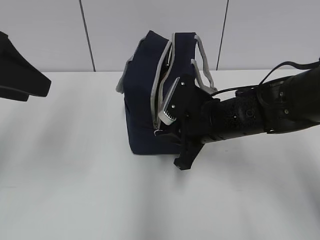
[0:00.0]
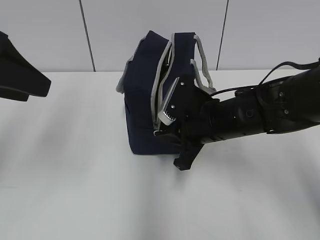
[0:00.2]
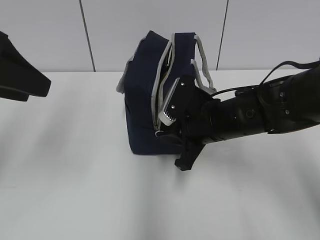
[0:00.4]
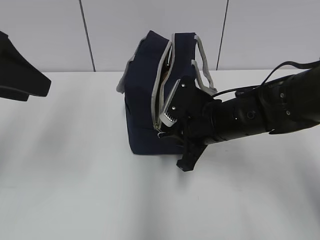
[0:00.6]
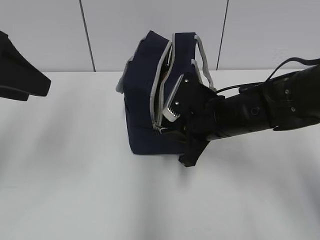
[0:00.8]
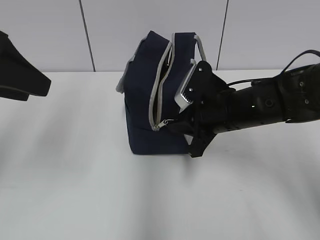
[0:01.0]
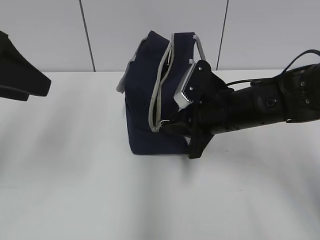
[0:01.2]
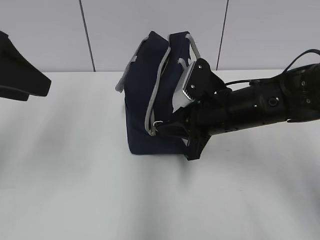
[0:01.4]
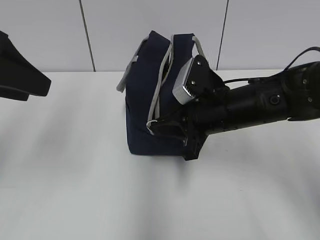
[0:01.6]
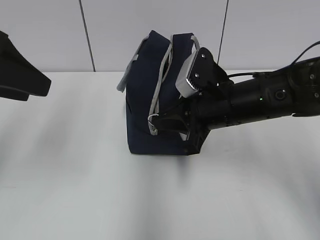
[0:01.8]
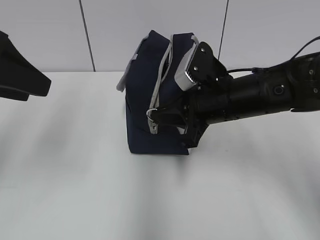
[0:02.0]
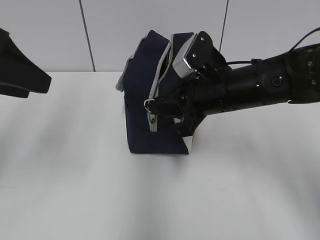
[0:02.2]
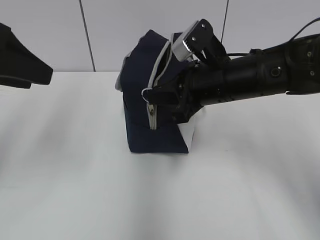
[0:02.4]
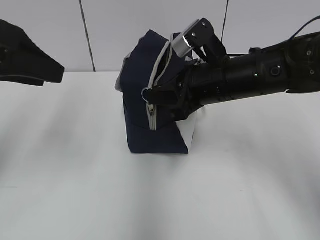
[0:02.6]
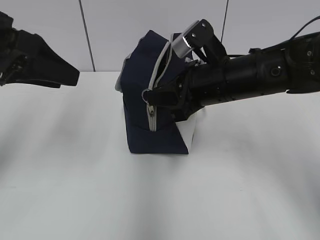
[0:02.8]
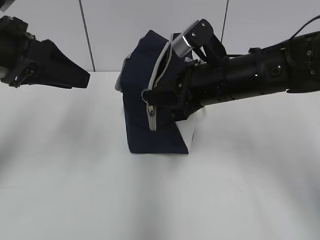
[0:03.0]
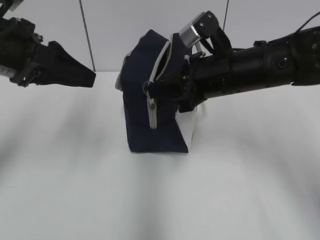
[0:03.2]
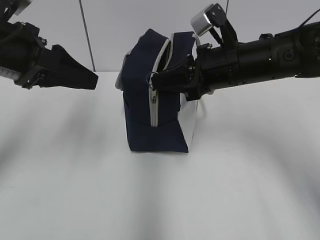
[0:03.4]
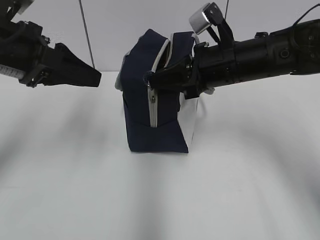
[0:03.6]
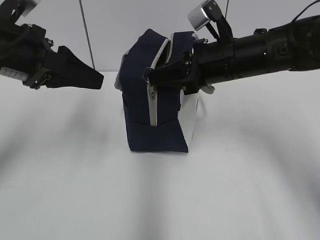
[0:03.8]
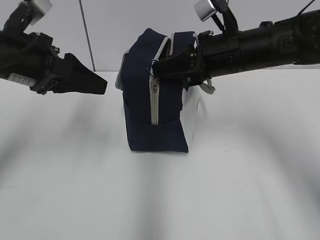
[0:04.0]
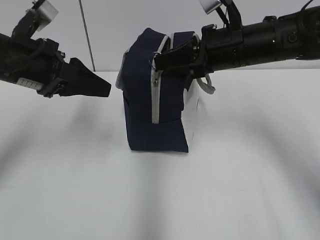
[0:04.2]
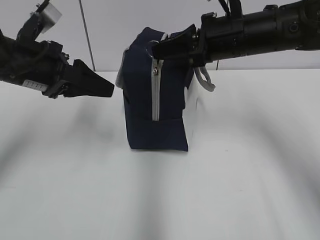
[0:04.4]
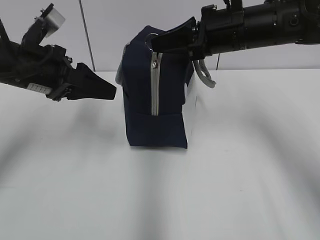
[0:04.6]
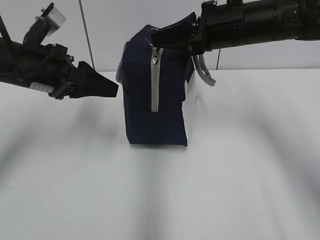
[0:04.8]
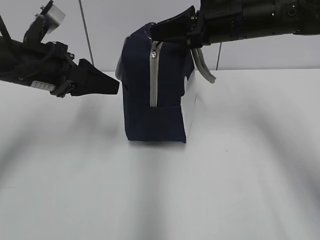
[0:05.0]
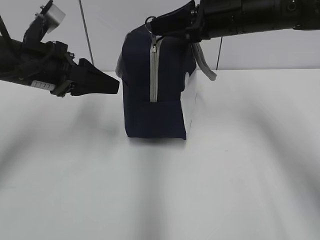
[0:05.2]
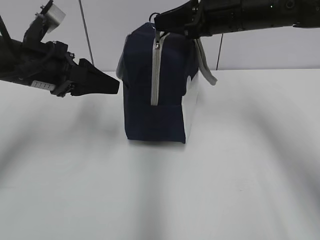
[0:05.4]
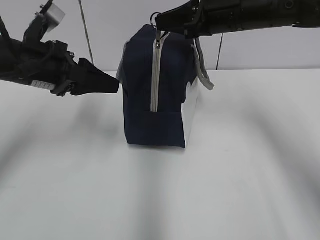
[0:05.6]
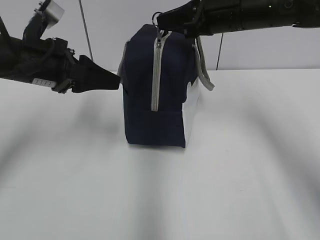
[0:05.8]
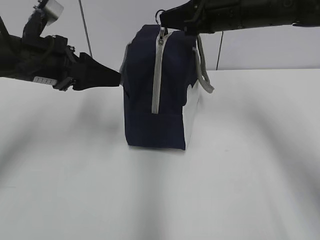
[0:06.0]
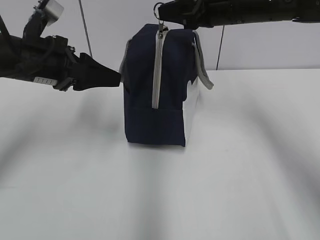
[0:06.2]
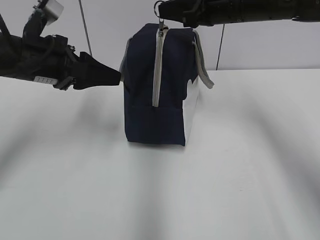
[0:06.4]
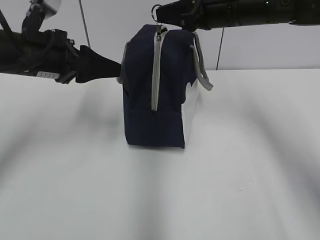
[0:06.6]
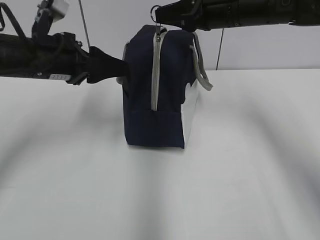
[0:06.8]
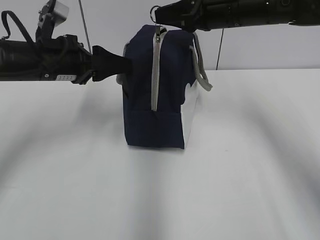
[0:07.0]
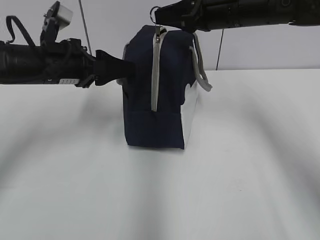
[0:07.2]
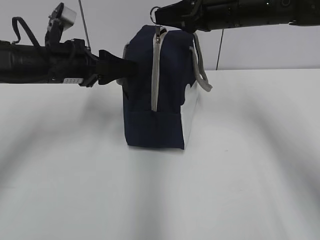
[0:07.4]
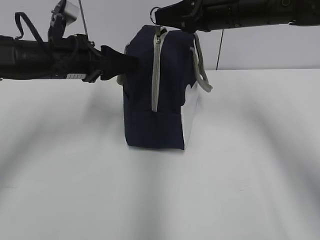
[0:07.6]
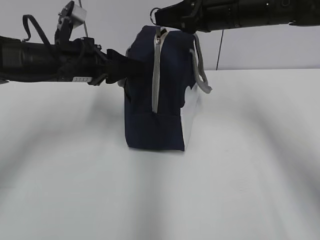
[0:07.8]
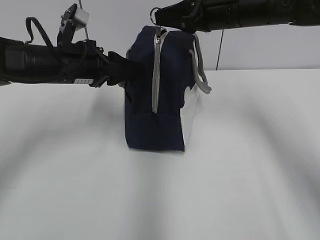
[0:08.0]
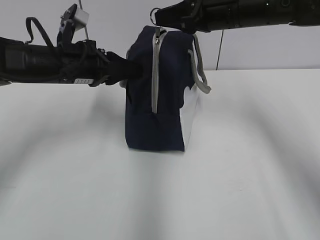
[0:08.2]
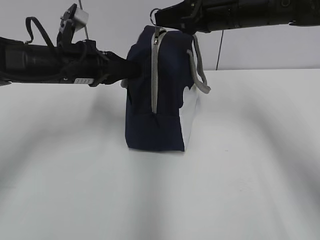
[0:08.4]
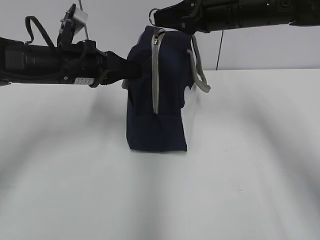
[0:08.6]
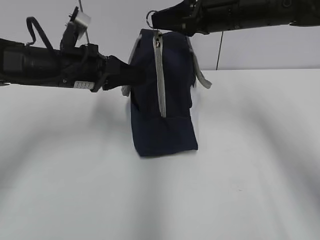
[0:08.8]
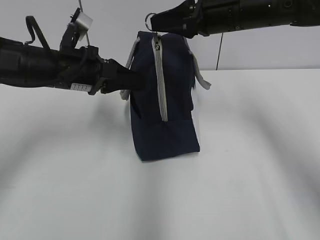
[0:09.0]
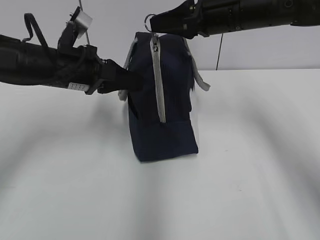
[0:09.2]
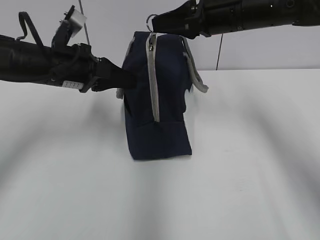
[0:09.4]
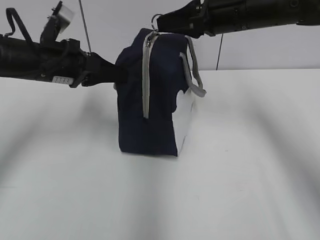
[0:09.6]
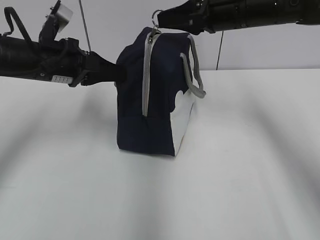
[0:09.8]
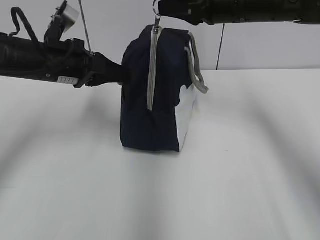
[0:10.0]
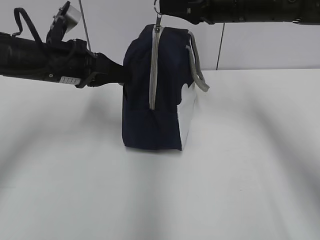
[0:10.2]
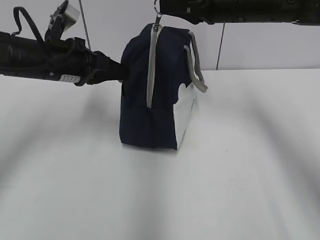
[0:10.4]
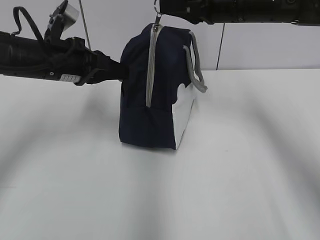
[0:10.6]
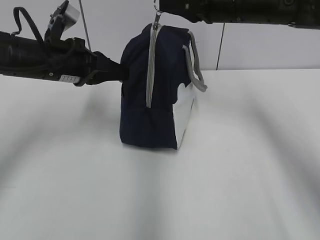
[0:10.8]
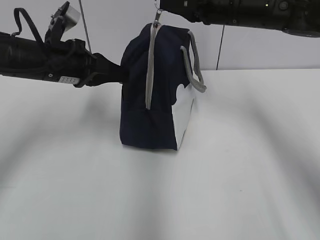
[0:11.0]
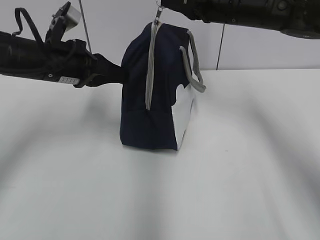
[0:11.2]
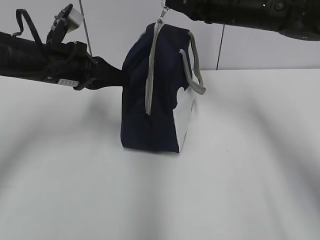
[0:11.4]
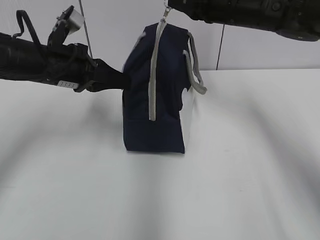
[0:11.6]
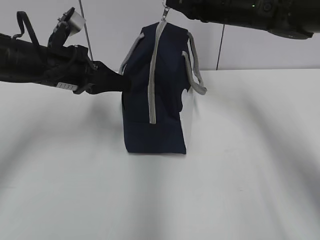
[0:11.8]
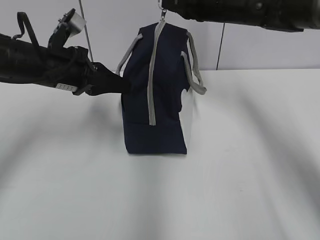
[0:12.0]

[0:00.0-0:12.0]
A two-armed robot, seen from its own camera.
0:00.0 to 0:01.6: The grippers stay close to where they were, moving slightly.
0:01.6 to 0:03.0: The left gripper ends up some 5 cm from where it was.
0:03.0 to 0:04.4: The left gripper moves some 5 cm; the right gripper shifts by approximately 5 cm.
0:04.4 to 0:06.0: The grippers move only a little.
0:06.0 to 0:07.6: The left gripper changes place by approximately 5 cm.
0:07.6 to 0:09.0: The left gripper closes up.
0:09.0 to 0:10.4: The grippers make only small movements.
0:10.4 to 0:12.0: The right gripper travels forward by some 5 cm.

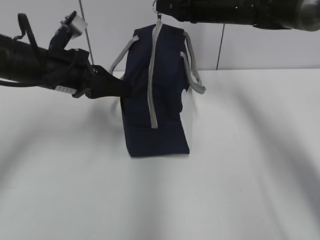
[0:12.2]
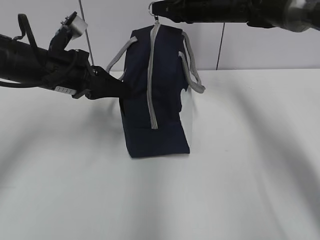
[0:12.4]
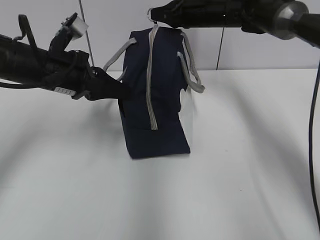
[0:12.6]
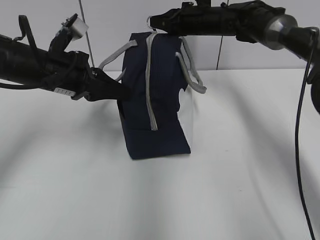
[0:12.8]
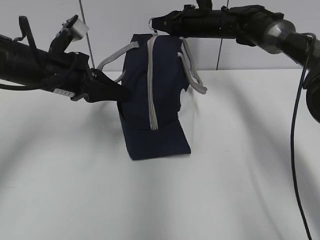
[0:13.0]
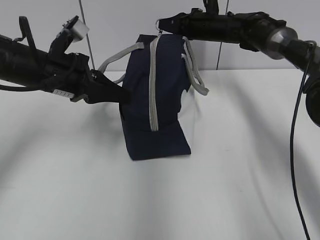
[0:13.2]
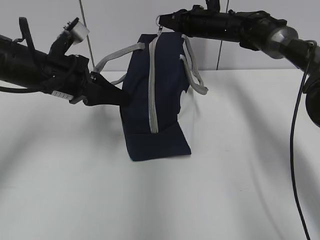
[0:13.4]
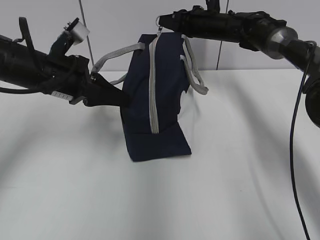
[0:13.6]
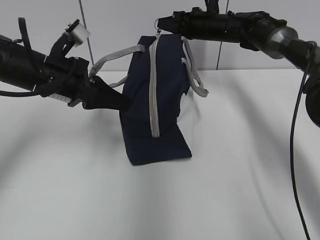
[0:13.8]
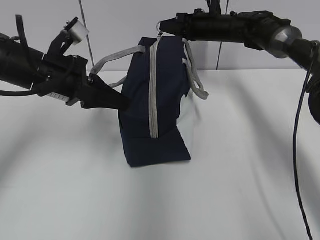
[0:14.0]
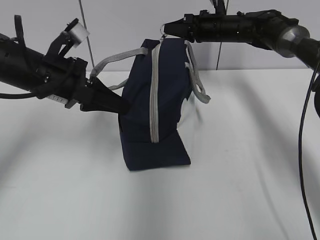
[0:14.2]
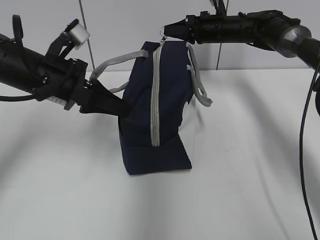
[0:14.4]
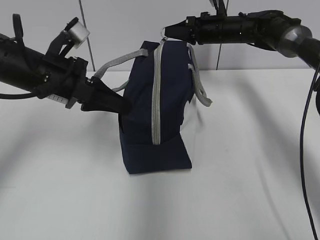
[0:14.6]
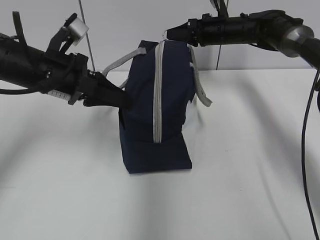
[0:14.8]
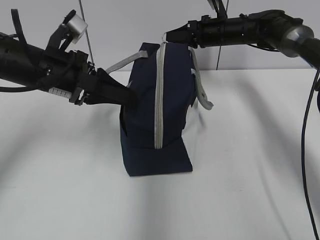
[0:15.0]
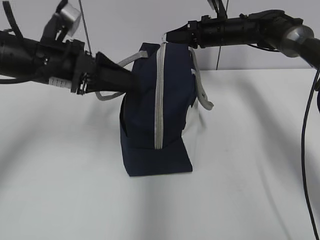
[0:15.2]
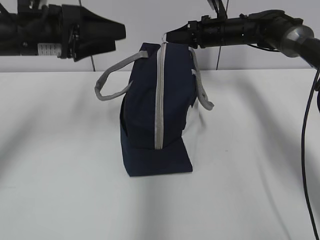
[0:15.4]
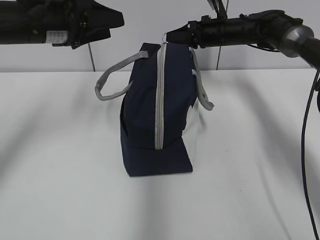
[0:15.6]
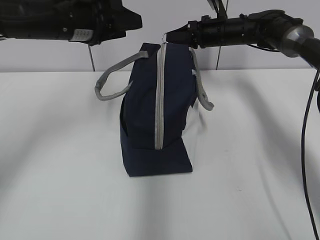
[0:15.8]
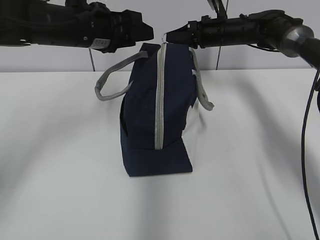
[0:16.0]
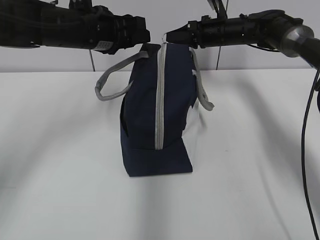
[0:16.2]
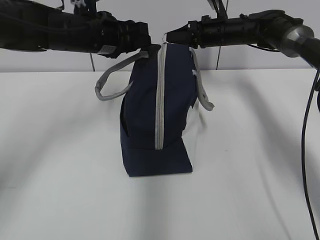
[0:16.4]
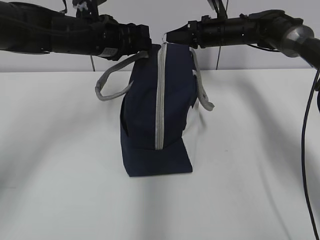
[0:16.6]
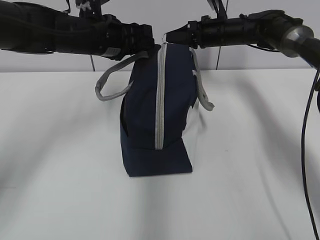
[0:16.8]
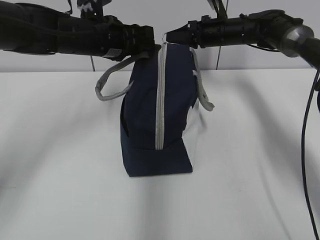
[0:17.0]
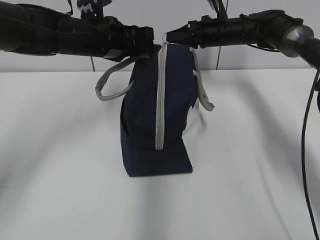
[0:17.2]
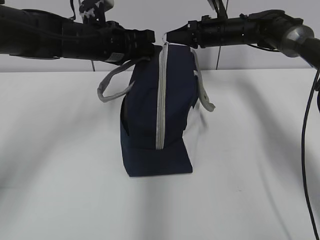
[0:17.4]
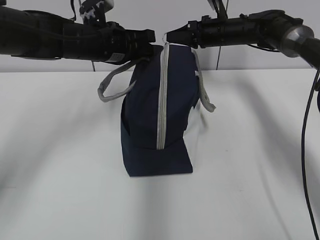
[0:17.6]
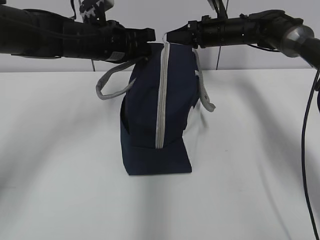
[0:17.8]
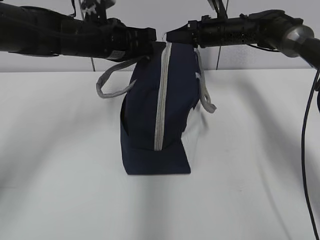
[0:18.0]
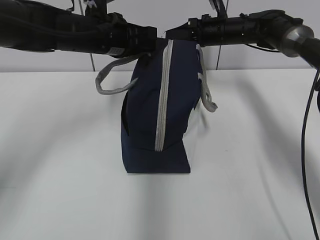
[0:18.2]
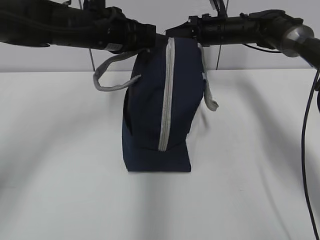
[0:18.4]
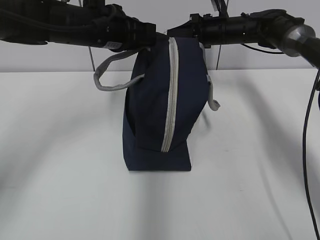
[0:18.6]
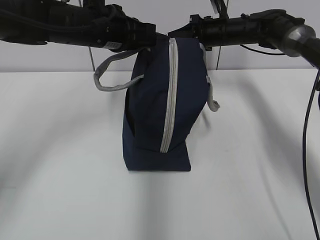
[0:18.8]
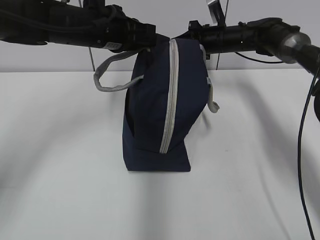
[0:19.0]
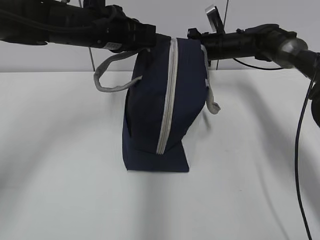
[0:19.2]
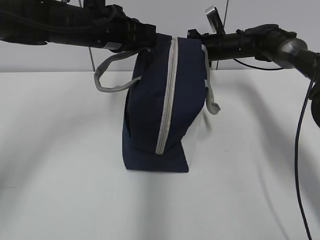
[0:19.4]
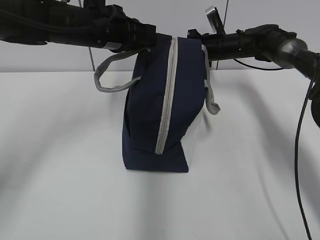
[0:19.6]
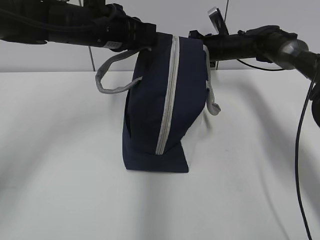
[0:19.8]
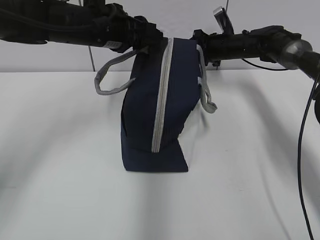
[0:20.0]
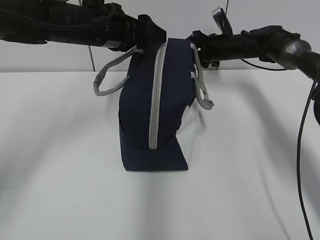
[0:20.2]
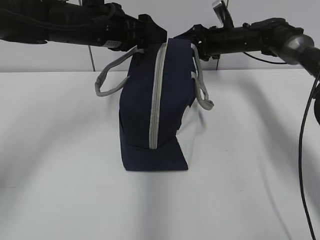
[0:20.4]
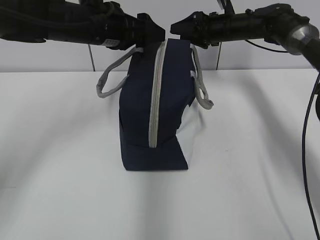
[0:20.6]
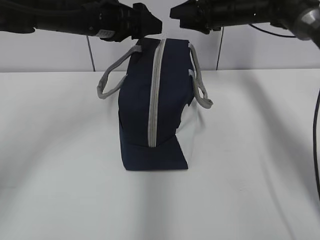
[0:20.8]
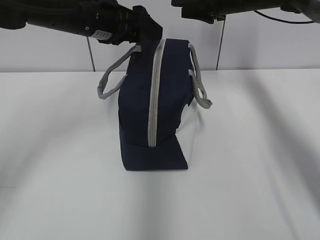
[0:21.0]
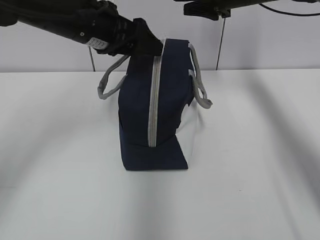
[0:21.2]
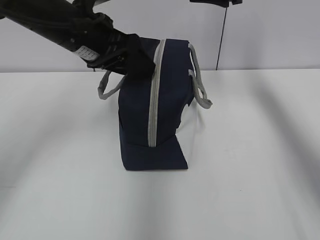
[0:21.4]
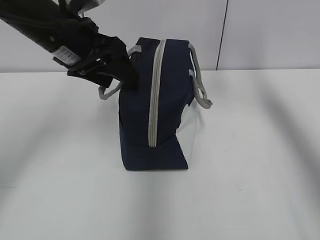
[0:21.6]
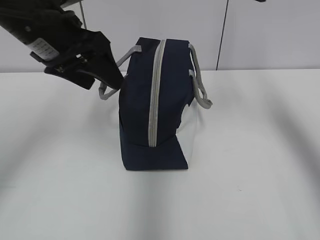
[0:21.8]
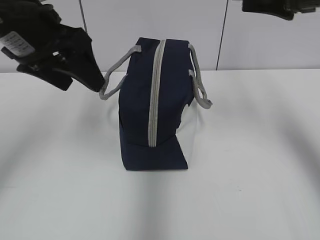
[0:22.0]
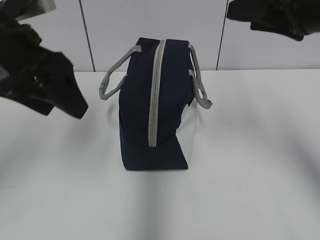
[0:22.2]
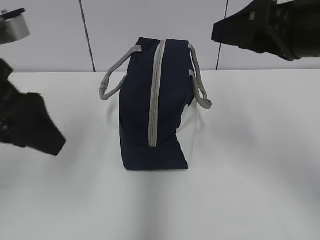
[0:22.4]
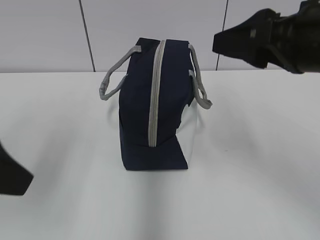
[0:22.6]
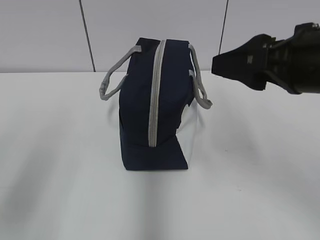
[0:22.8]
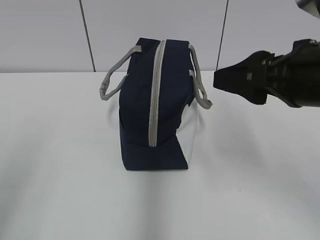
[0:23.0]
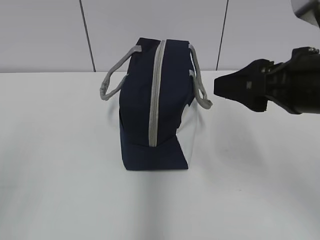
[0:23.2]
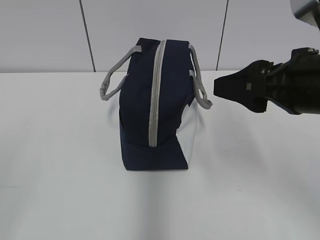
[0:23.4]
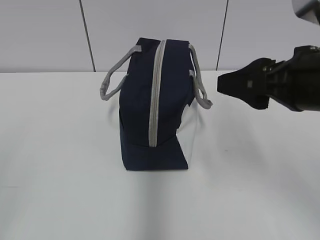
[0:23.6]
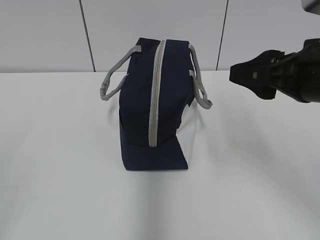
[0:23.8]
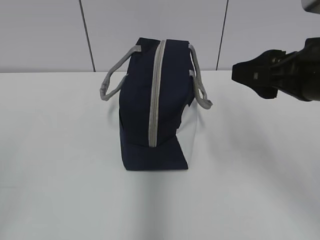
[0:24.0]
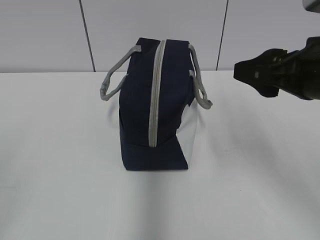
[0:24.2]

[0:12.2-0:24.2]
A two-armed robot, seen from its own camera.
0:12.2 to 0:13.8: The right gripper travels forward and downward by about 10 cm.
0:13.8 to 0:15.2: The left gripper opens.
0:15.2 to 0:16.6: The left gripper is displaced forward by roughly 10 cm.
0:16.6 to 0:18.2: The left gripper closes up.
0:18.2 to 0:19.8: There are only small adjustments of the grippers.
0:19.8 to 0:21.2: The right gripper shifts roughly 15 cm upward and backward, and opens its fingers. The left gripper opens up.
0:21.2 to 0:22.6: The left gripper heads backward and to the left, covering roughly 25 cm. The right gripper travels backward by approximately 30 cm.
0:22.6 to 0:24.2: The left gripper goes some 15 cm backward and to the left.
